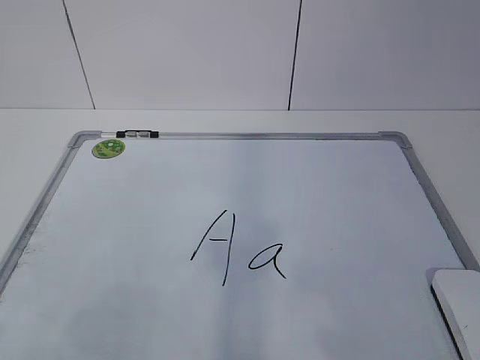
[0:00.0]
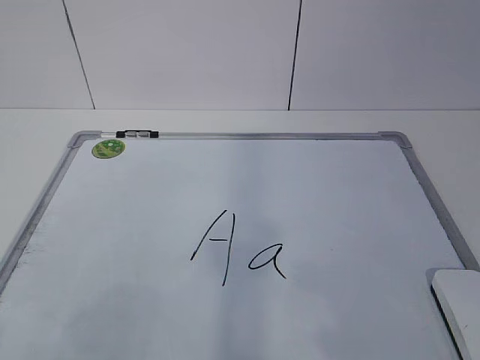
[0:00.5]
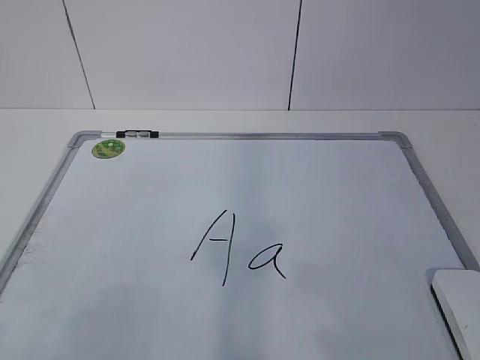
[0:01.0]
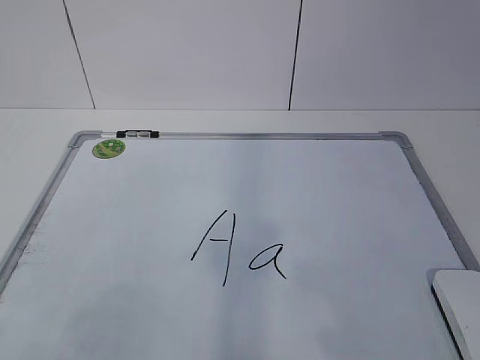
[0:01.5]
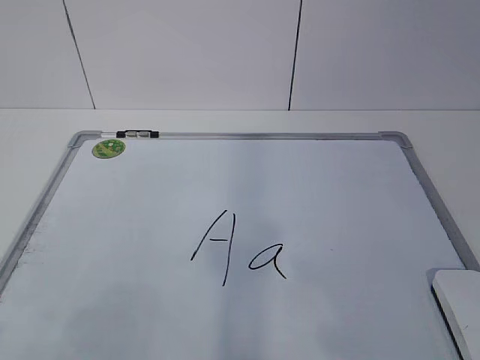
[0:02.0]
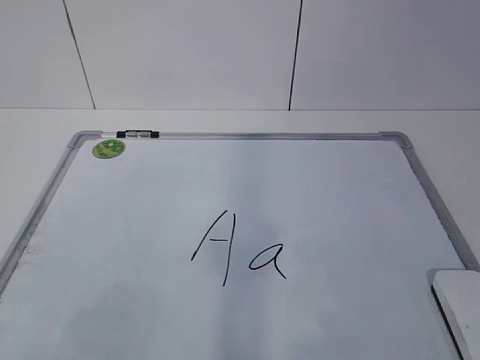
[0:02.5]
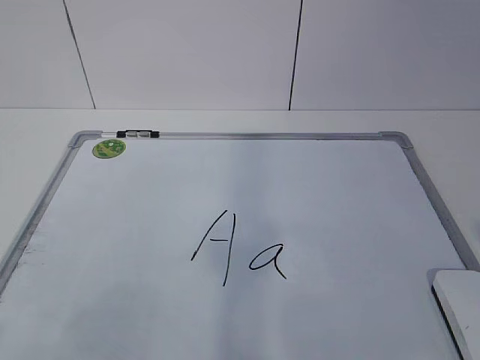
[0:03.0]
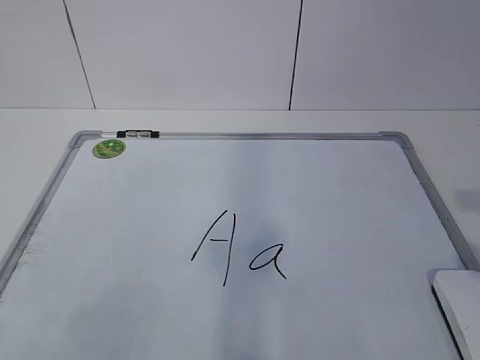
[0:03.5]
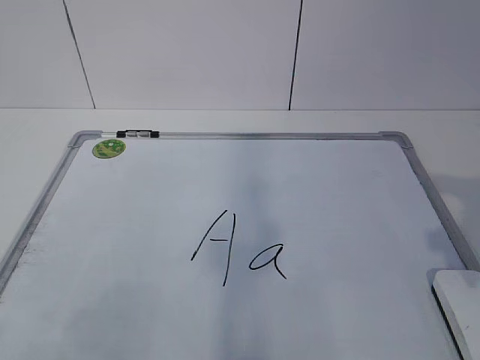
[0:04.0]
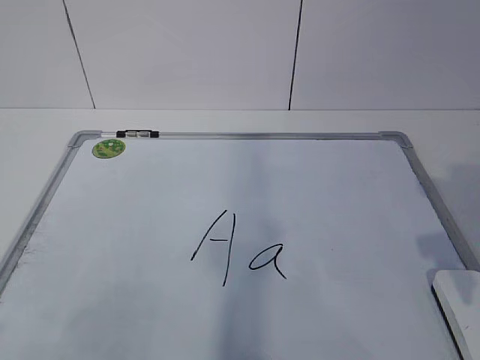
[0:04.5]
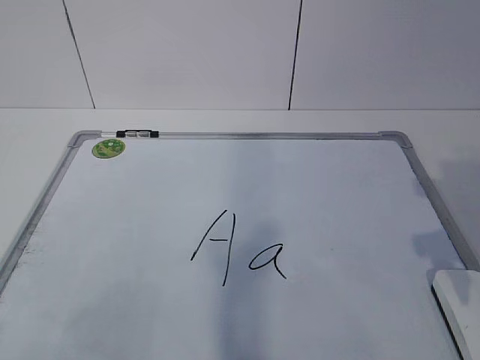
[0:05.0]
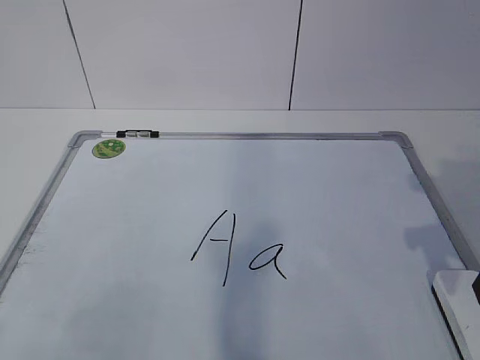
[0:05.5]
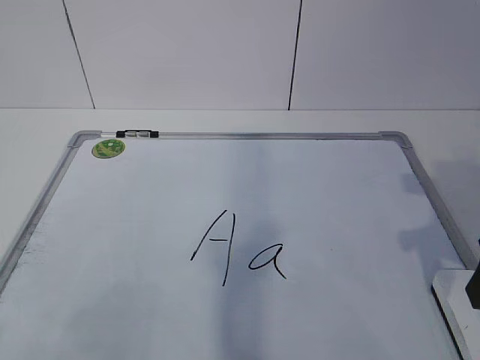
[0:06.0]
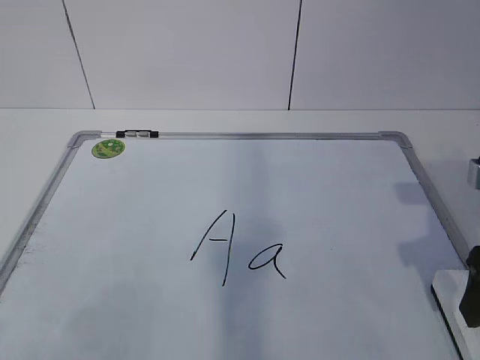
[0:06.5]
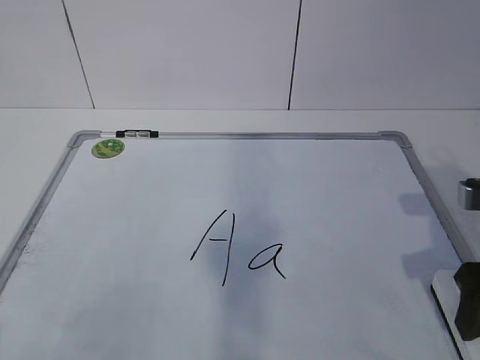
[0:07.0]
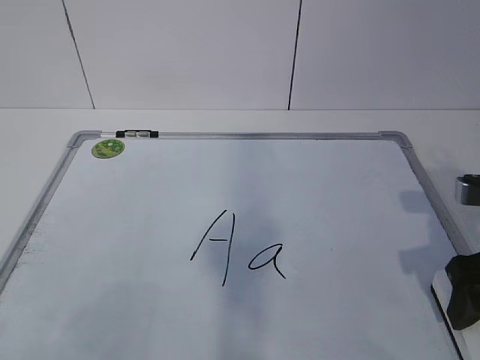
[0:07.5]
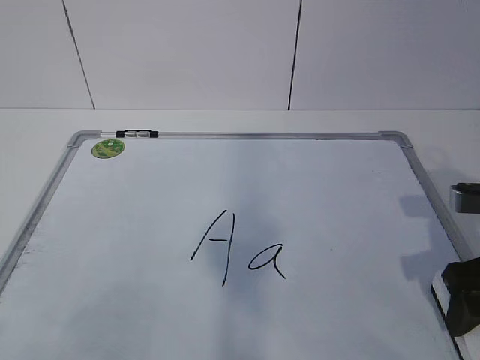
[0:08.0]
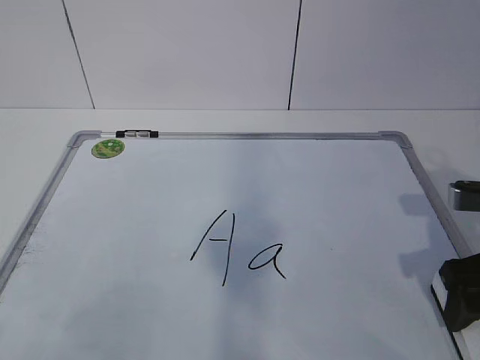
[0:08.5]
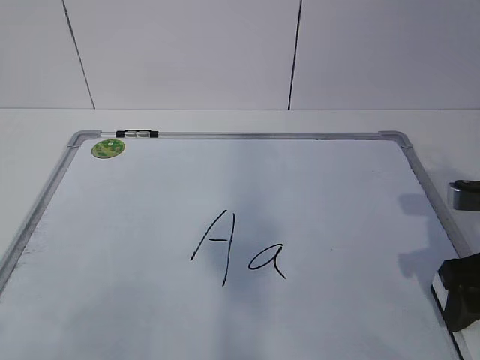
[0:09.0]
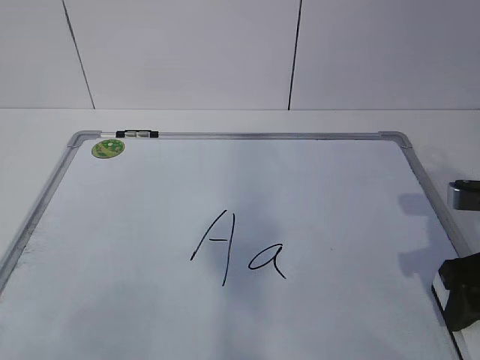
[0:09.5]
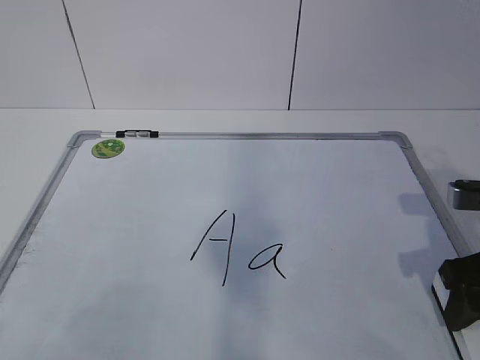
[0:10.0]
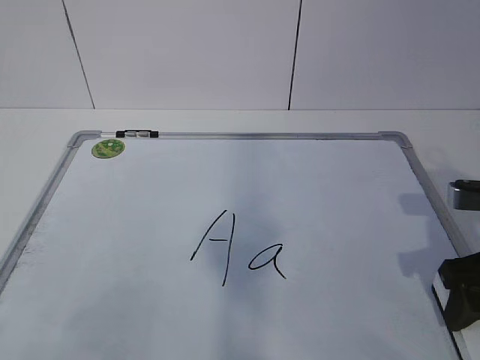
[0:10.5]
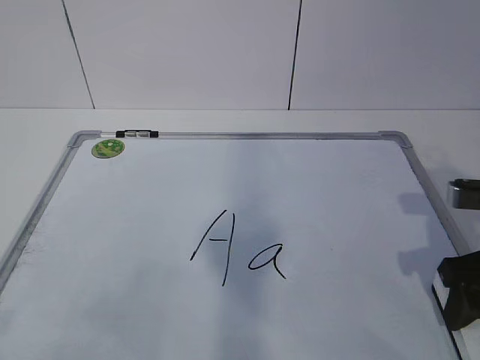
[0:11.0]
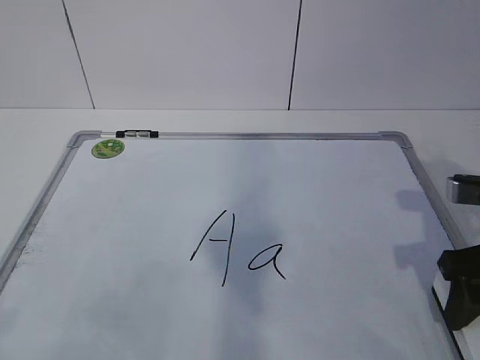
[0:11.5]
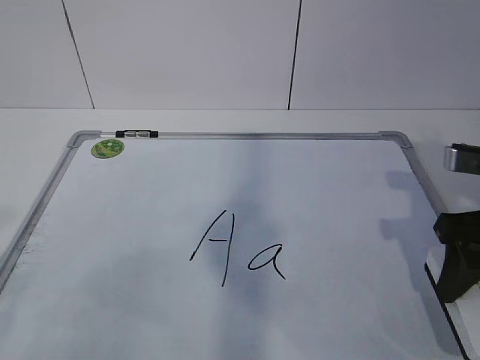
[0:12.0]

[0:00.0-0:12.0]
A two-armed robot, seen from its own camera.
Task of the whole recording: pick up the eraser on the blackboard and erase the letter "a".
Step, 0:00.0 to 0:07.5: Grab the eraser with your right hand.
0:04.0 to 0:06.0: The right gripper goes some 5 cm forward, and closes.
0:06.0 to 0:08.0: The right gripper shifts some 5 cm downward, and opens.

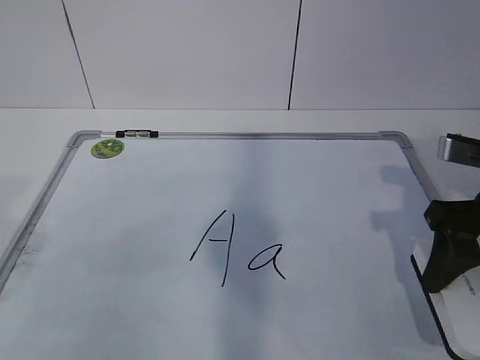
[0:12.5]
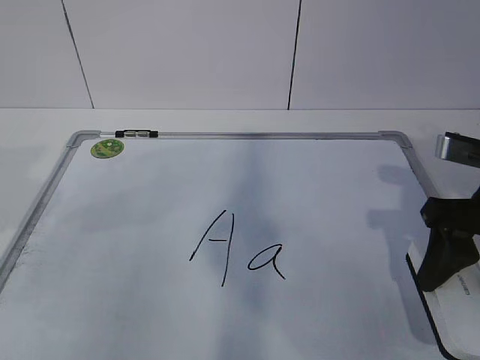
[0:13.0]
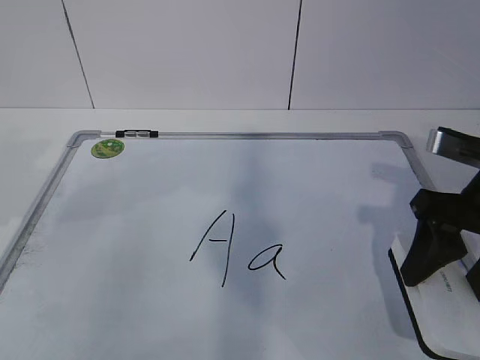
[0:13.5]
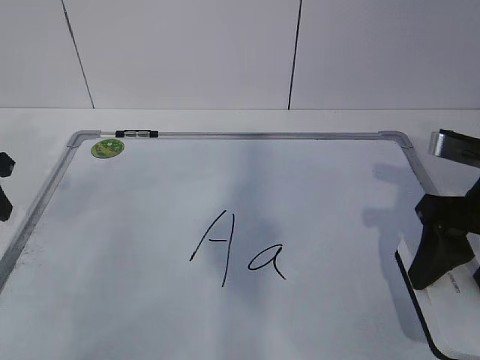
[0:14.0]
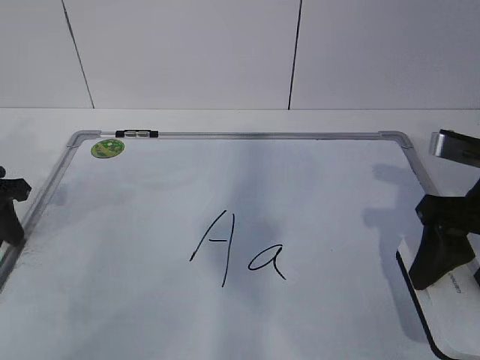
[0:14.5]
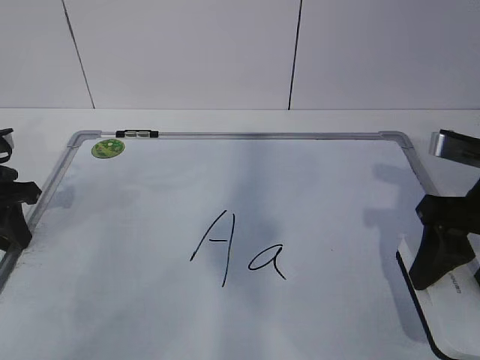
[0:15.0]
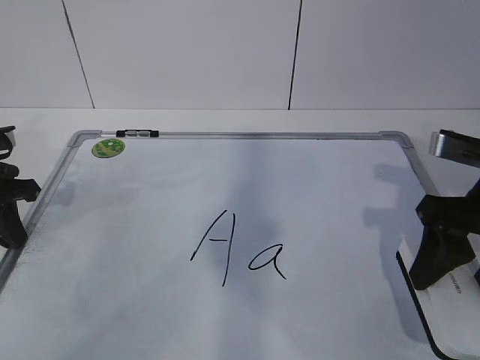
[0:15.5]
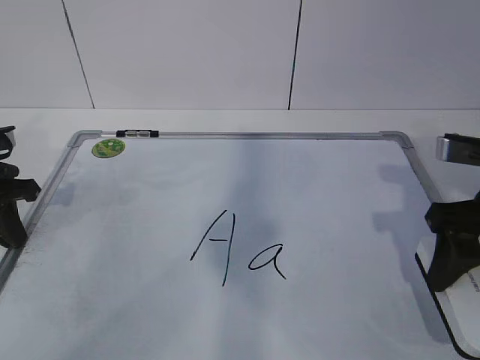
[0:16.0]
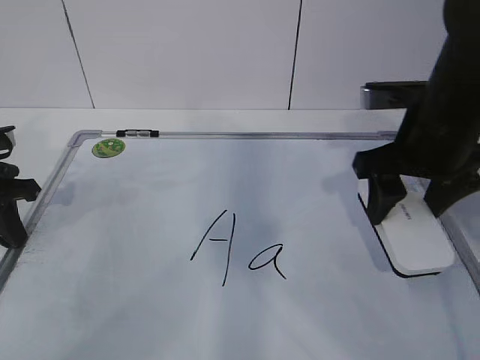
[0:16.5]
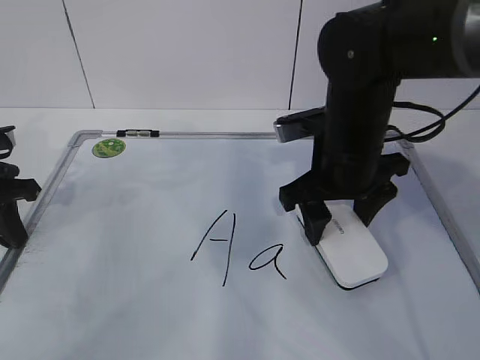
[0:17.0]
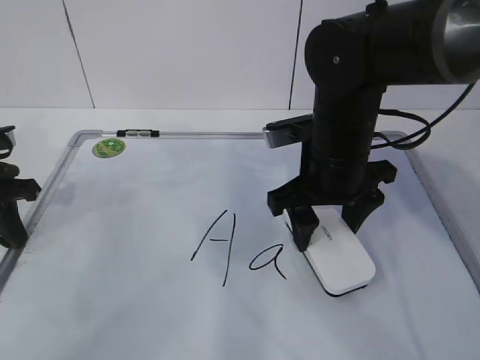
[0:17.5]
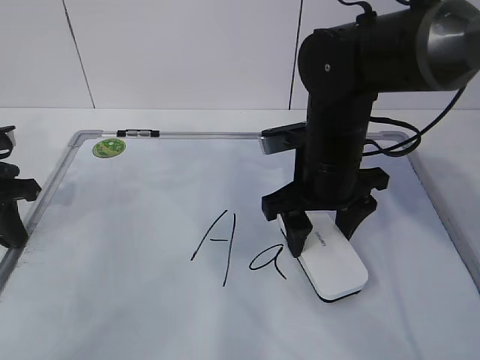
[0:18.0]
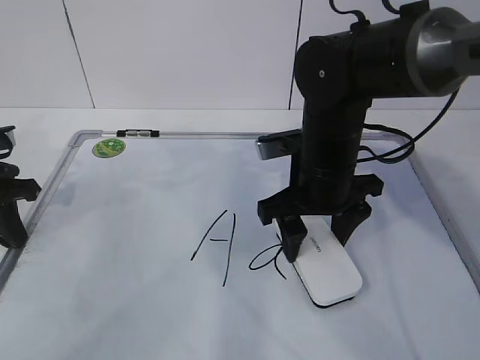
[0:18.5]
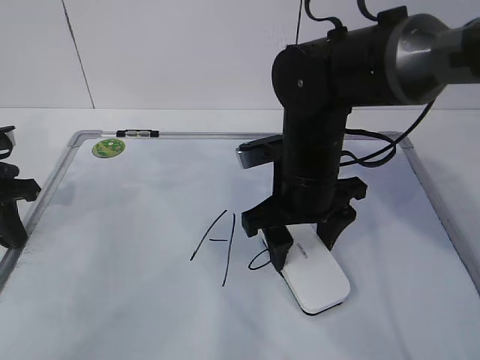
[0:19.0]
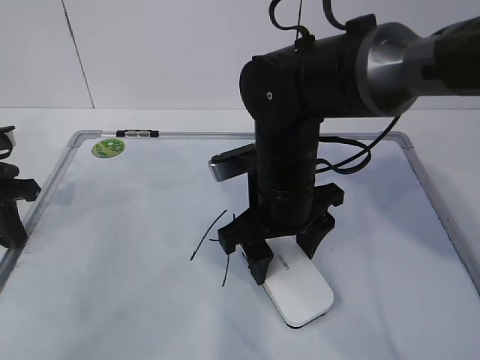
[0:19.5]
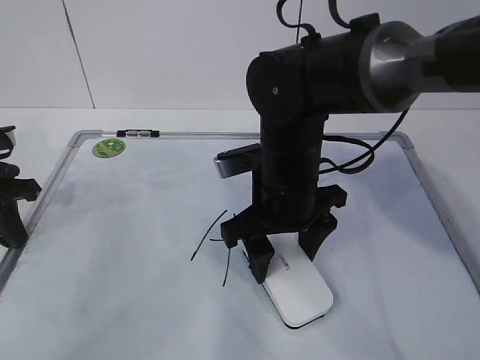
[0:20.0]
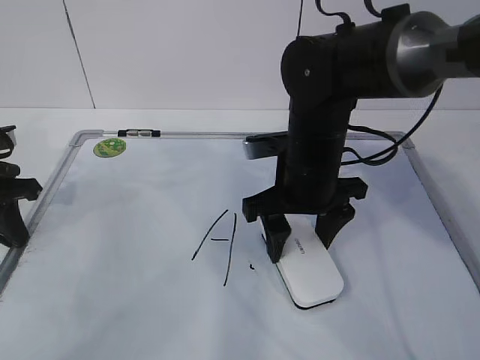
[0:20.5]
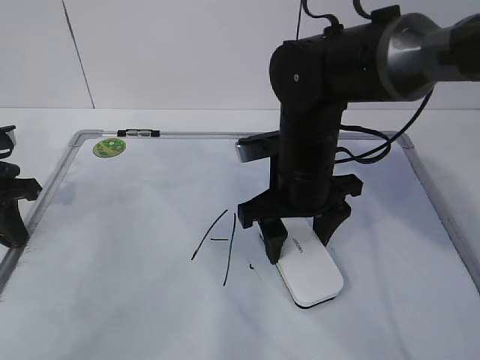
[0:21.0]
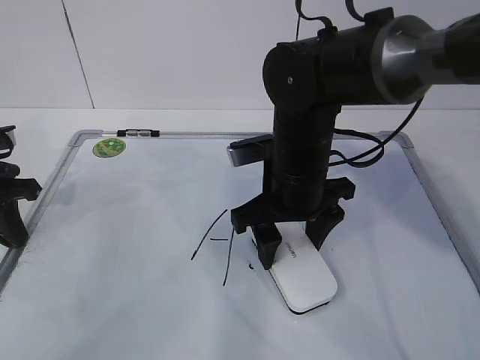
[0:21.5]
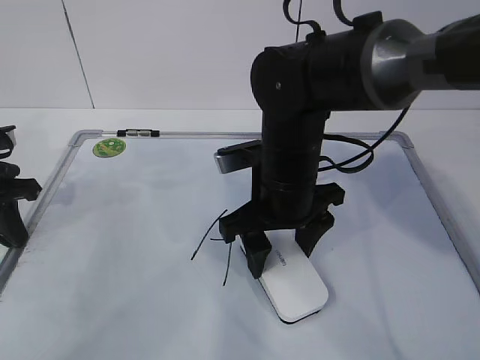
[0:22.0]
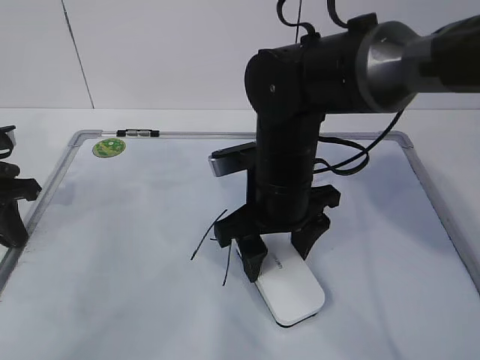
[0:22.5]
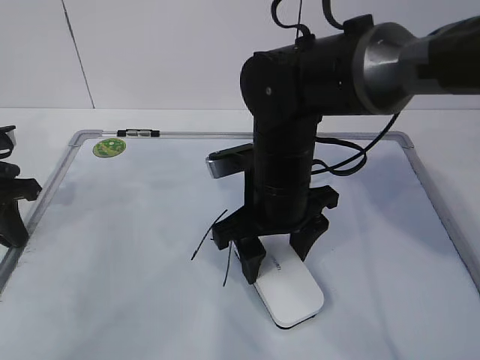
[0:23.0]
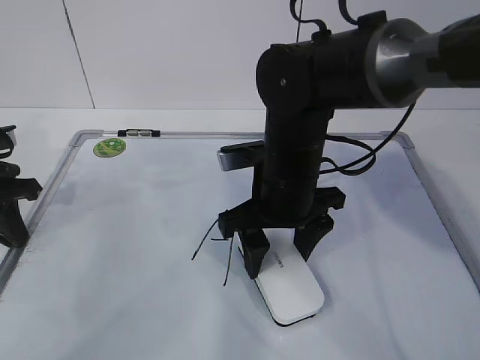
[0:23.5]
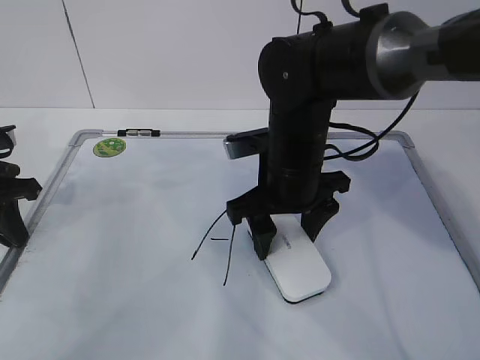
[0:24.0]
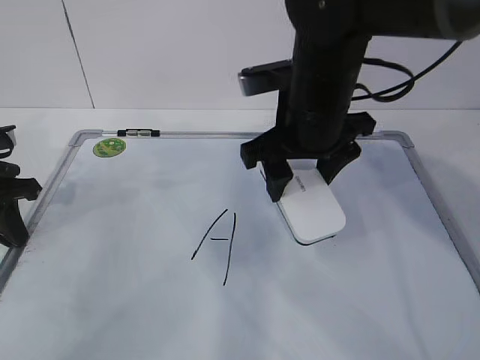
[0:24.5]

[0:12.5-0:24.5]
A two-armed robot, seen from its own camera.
Task of the whole recording: pick up the eraser on the blackboard and erase the letter "a".
Step, 0:13.0 to 0:19.5: Erase the letter a with your right hand.
0:12.5 to 0:14.5: The left gripper goes about 25 cm forward and downward.
0:14.5 to 0:16.5: The left gripper closes up, while the right gripper moves forward, about 5 cm.
0:16.5 to 0:18.5: The right gripper shifts about 10 cm to the left and downward.
0:18.5 to 0:22.5: There are only small adjustments of the grippers.
0:22.5 to 0:24.5: The right gripper shifts roughly 5 cm upward.

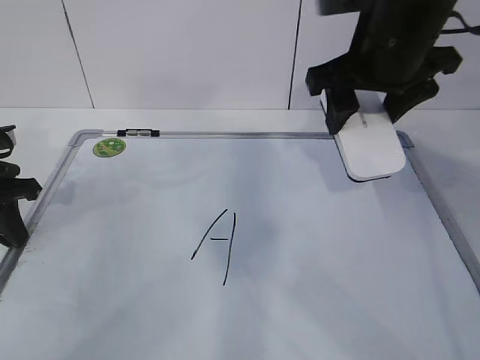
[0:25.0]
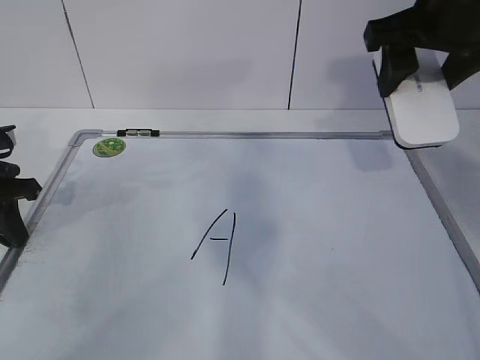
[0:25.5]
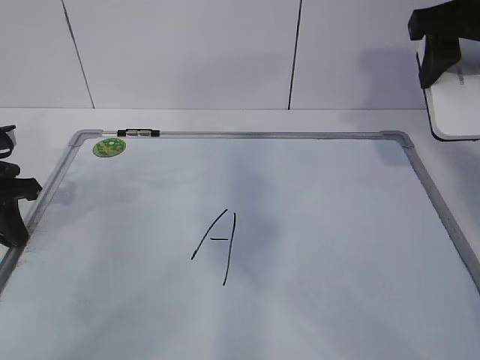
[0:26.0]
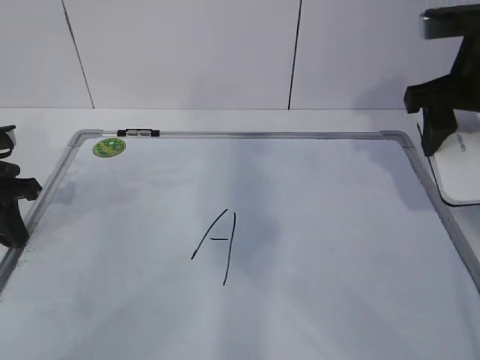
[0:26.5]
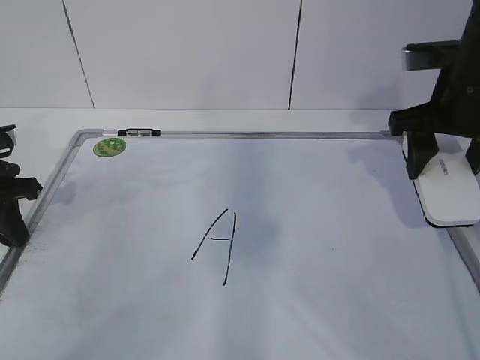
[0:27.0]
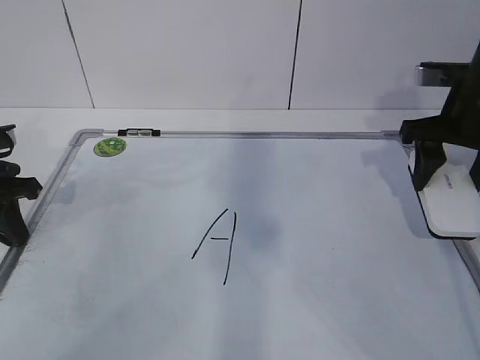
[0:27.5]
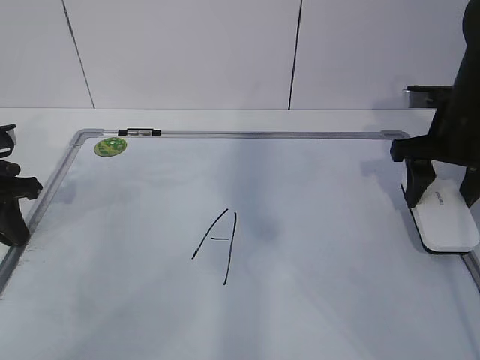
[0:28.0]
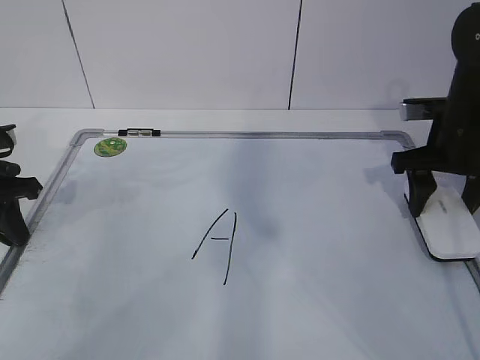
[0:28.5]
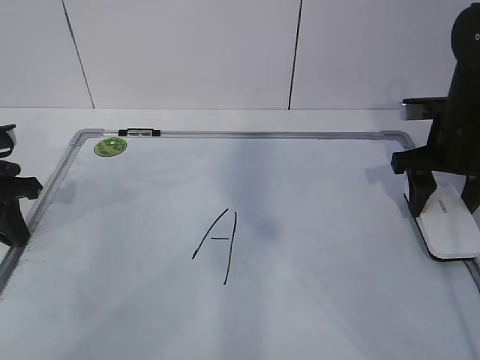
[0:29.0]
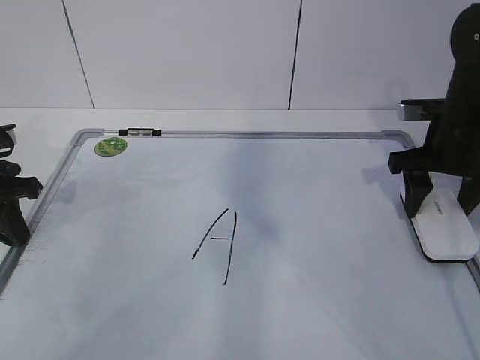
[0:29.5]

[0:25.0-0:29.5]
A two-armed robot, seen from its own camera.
Task of the whole recording: pick up the eraser on the blackboard and erase the letter "a".
0:25.0 to 0:27.0: The right gripper is displaced to the right by roughly 10 cm.
0:27.0 to 0:29.5: The right gripper is displaced downward by roughly 5 cm.
